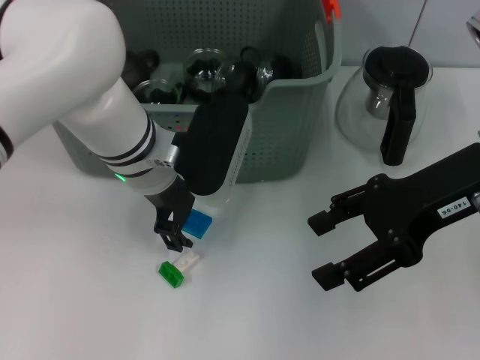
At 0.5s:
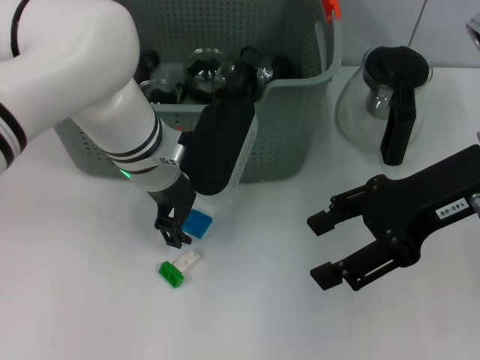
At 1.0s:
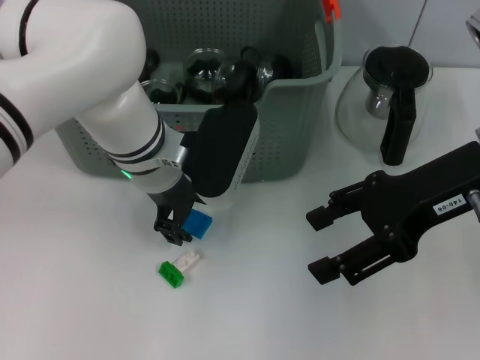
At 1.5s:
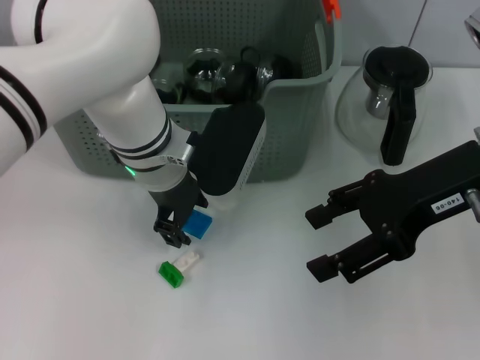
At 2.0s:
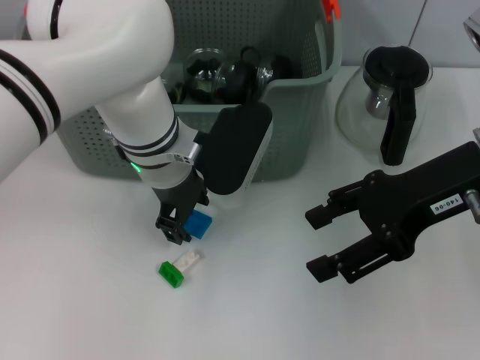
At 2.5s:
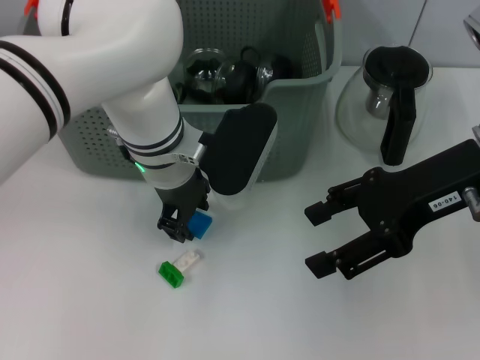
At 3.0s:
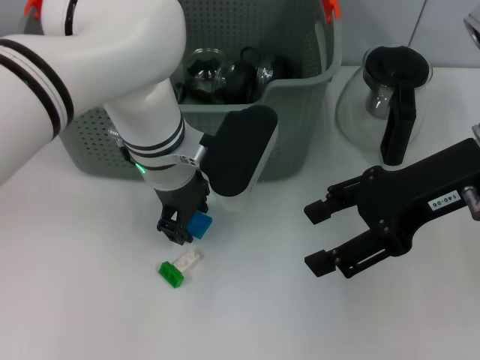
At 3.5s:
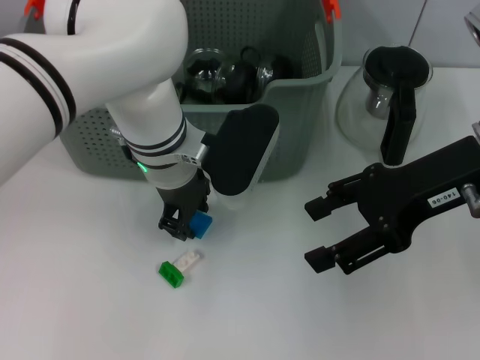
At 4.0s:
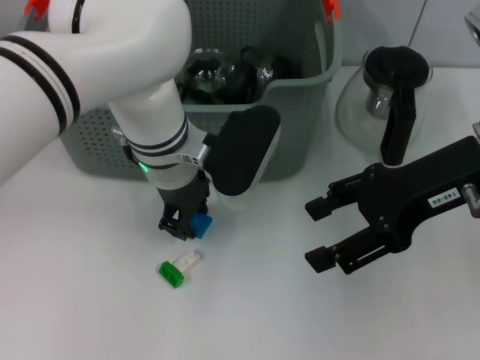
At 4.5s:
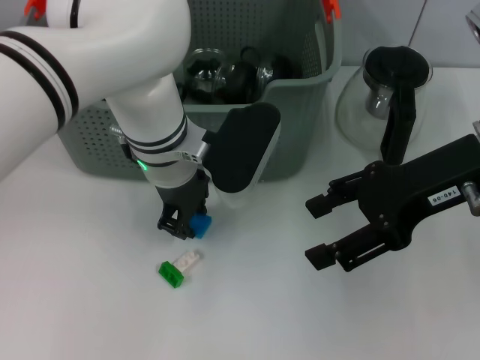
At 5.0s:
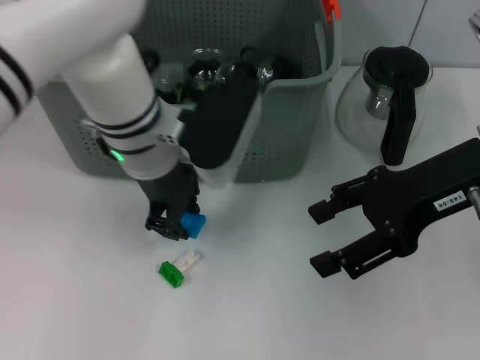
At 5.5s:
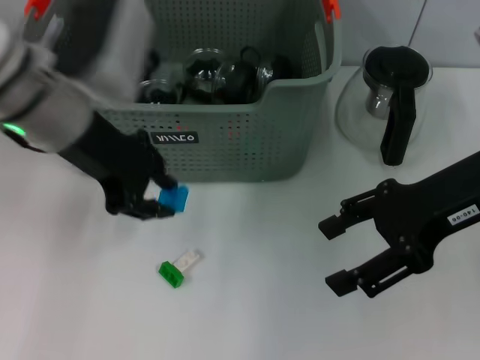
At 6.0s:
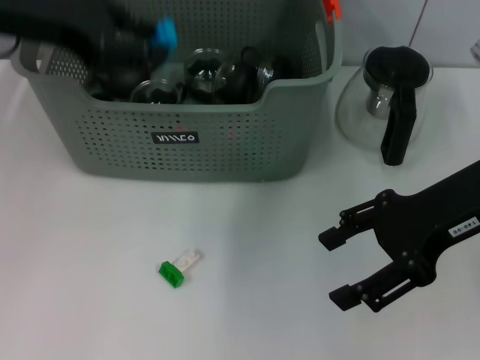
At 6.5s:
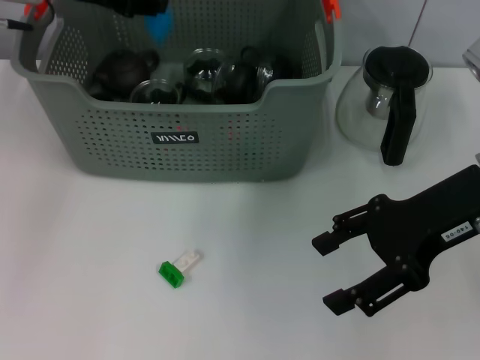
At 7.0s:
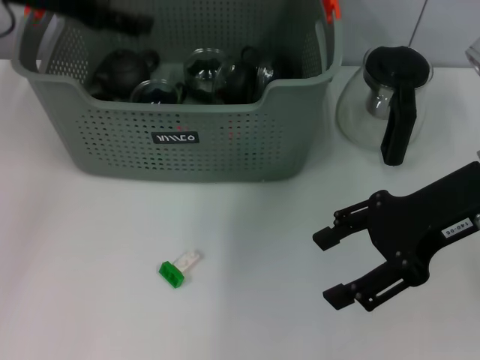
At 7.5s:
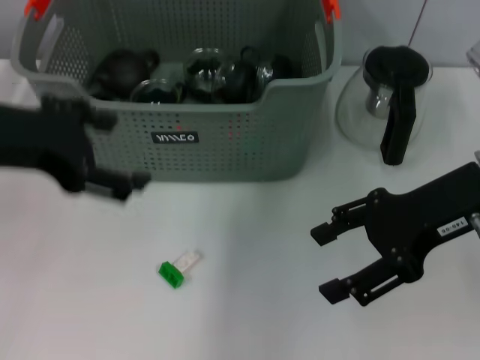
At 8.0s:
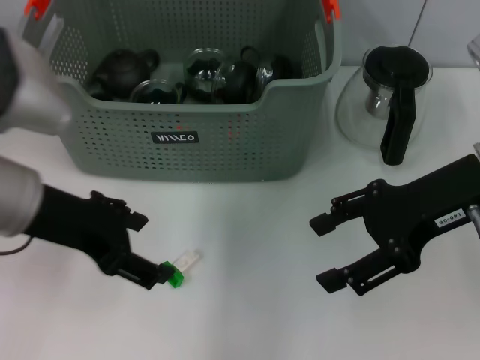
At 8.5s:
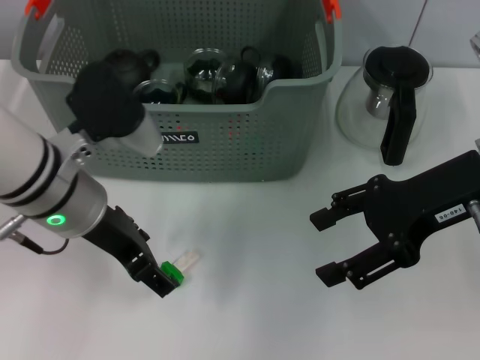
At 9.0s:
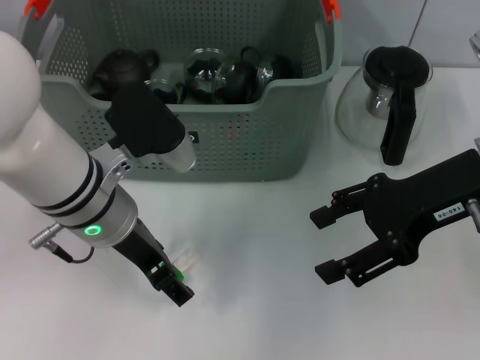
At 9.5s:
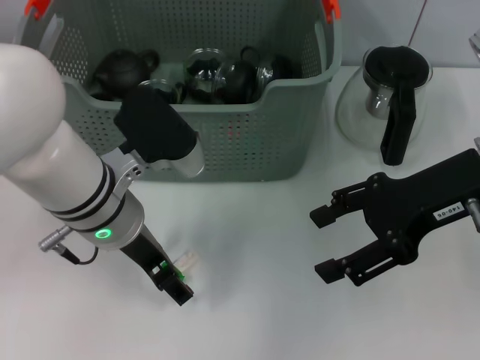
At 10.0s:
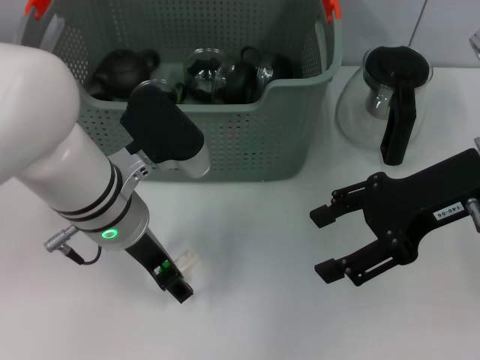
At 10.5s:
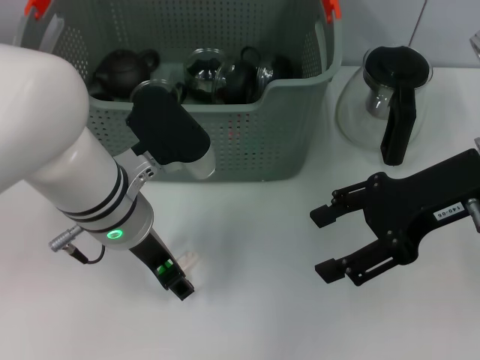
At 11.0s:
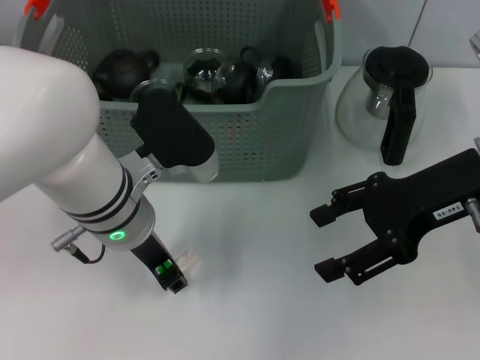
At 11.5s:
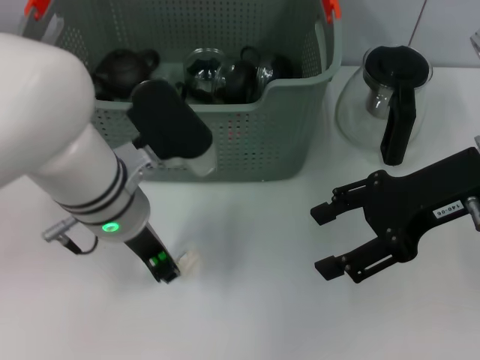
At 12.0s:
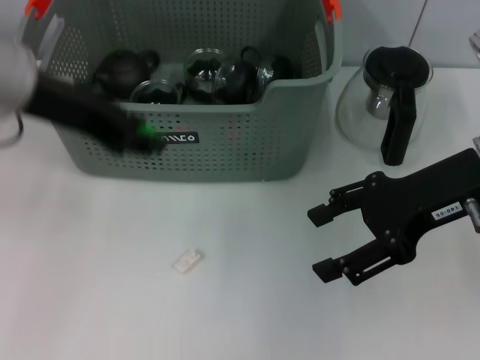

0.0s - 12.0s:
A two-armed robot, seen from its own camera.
Task of the whole recording: pick up the teacup on the table and place it into the storage bin, pick up the block on the table and place it into the storage bin.
Step, 0.0s - 4.0s: Grasp the dark blue block with left gripper.
Step, 4.5s - 6.5s: Place the dark blue block in the storage box with left gripper.
Step, 7.0s - 11.0s: Grasp the green block with left gripper.
0.0s - 2.0s: The grippers move only a little.
2.0s - 4.0s: Both grippers stay put.
4.0s - 6.0s: The left gripper shifts approximately 25 cm to the left and upward.
6.0s - 8.0s: The left gripper moves backward and downward, roughly 15 cm, and opens its fingers.
8.0s - 10.0s: The left gripper heads to the right and downward, covering roughly 10 cm.
10.0s - 12.0s: The left gripper shifts approximately 15 cm upward and to the left, and closes its fingers.

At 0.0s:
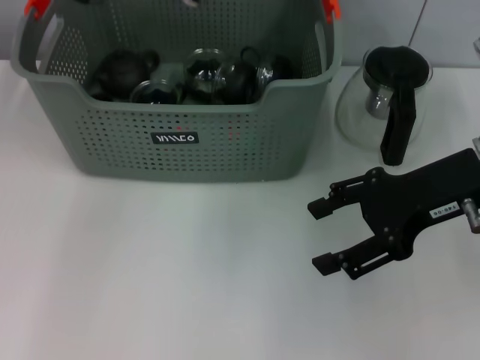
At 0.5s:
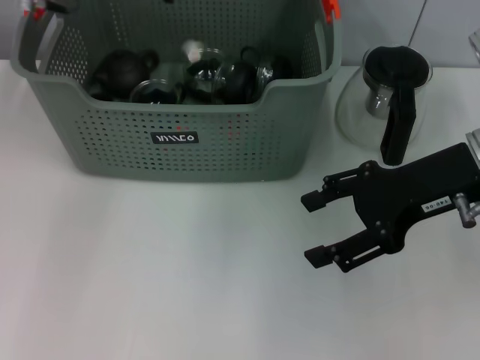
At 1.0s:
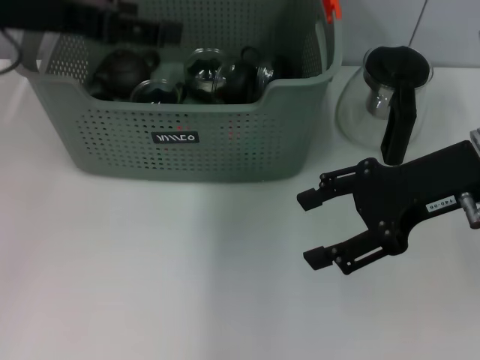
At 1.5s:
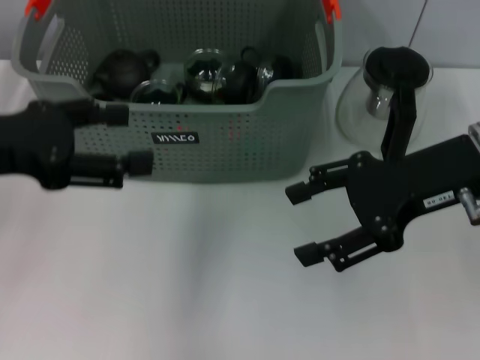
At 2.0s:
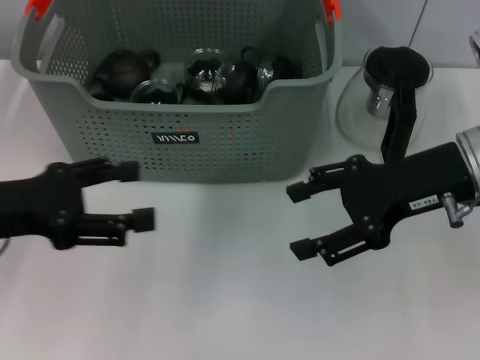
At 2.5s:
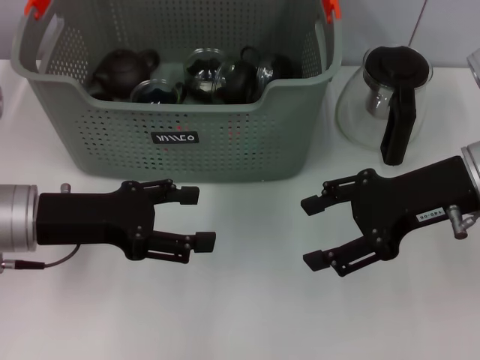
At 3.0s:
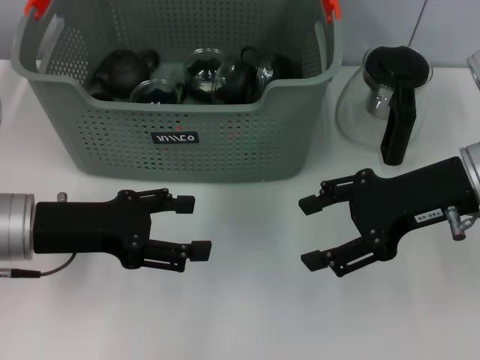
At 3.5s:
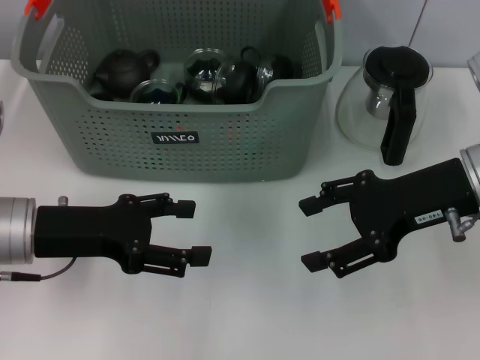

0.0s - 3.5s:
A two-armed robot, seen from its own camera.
Task of the whole recording: pick up the teacup on the table and place it into the storage bin, pick up the block on the table and place it into the storage bin.
0.0s - 2.0s: The left gripper heads backward, downward and to the left, covering approximately 25 cm, and opens up.
2.0s - 3.5s: The left gripper moves about 5 cm.
